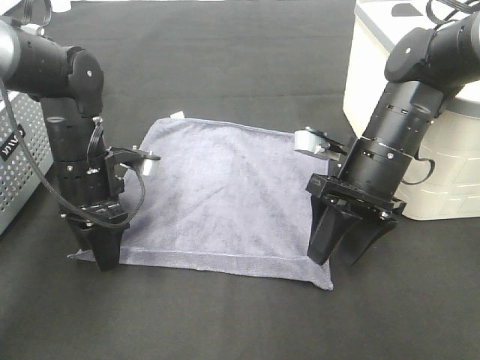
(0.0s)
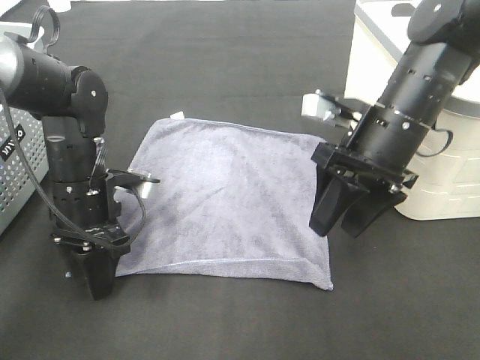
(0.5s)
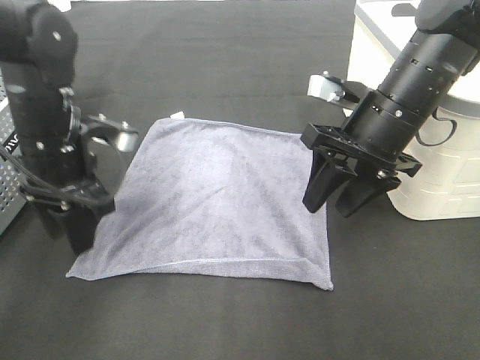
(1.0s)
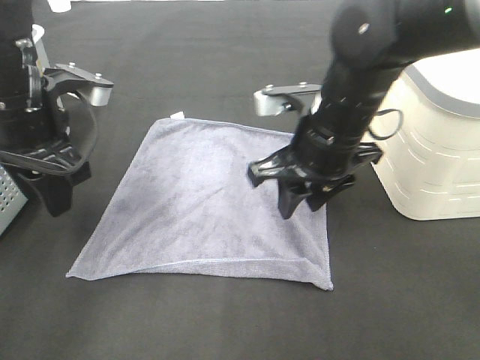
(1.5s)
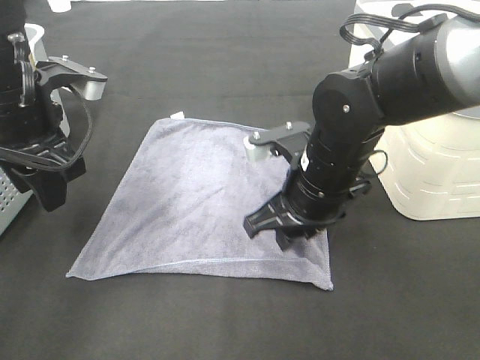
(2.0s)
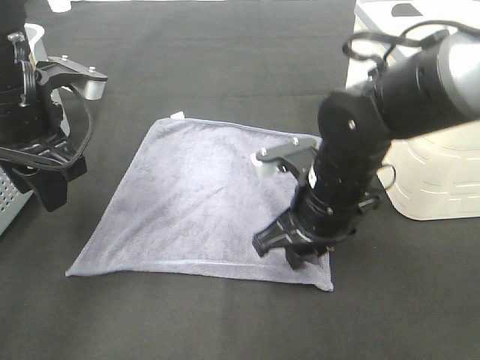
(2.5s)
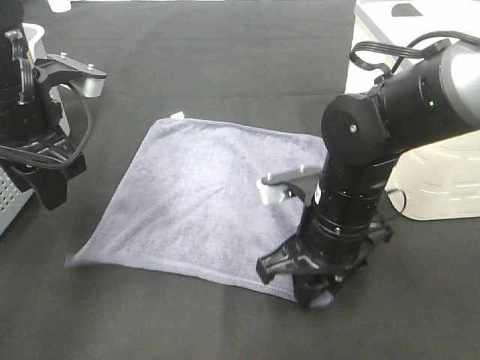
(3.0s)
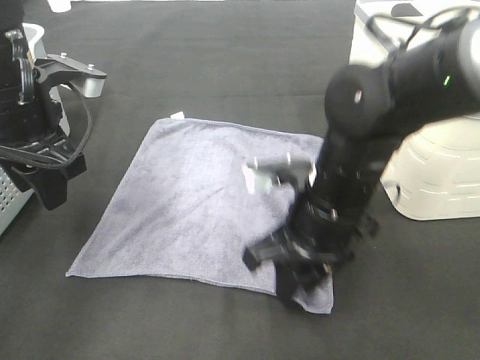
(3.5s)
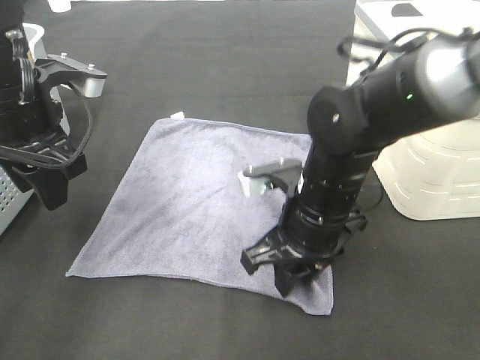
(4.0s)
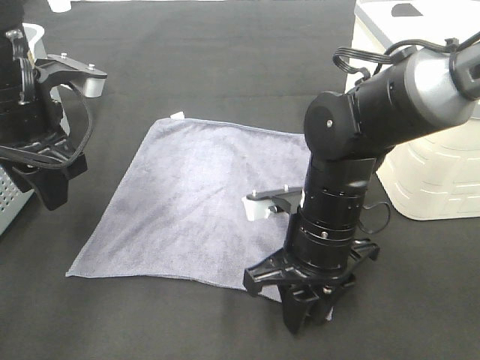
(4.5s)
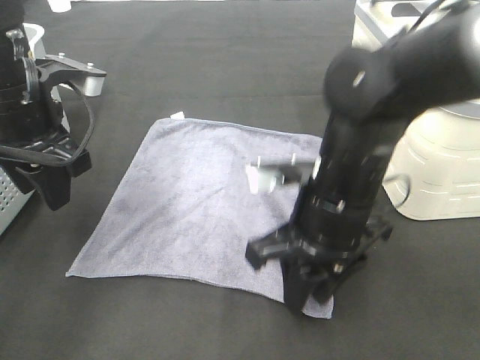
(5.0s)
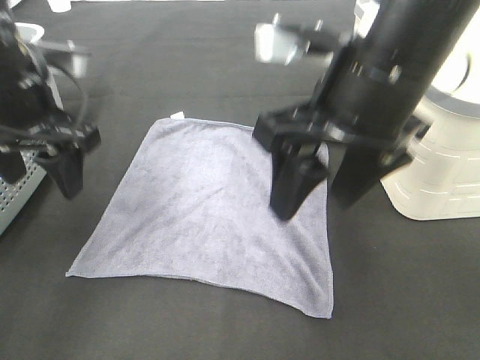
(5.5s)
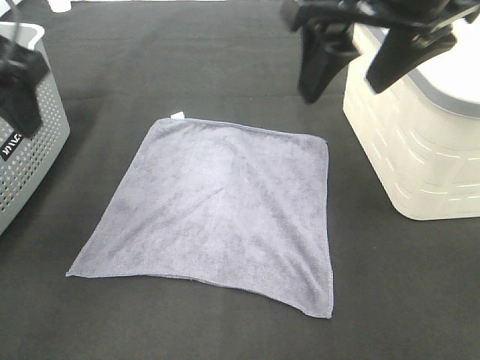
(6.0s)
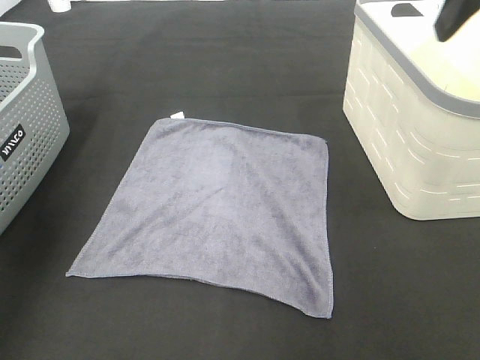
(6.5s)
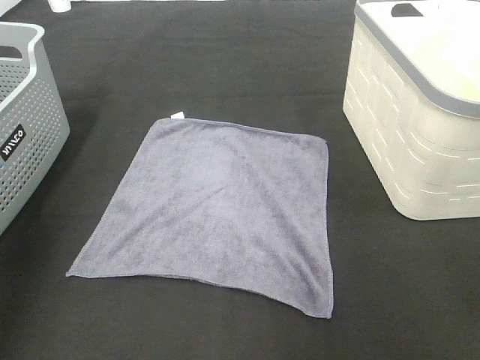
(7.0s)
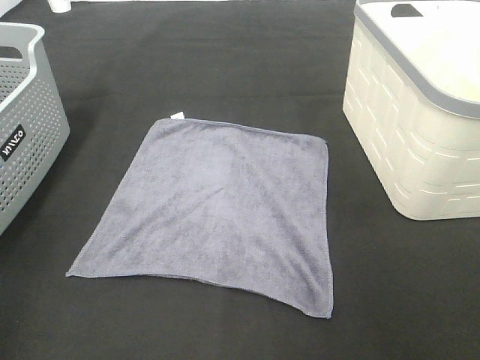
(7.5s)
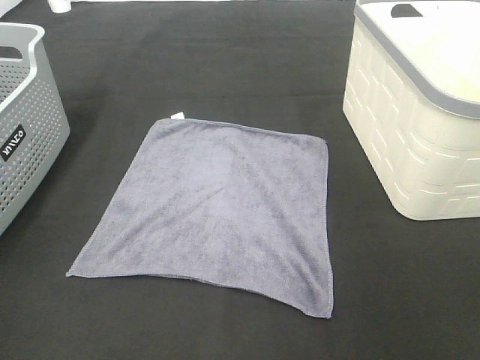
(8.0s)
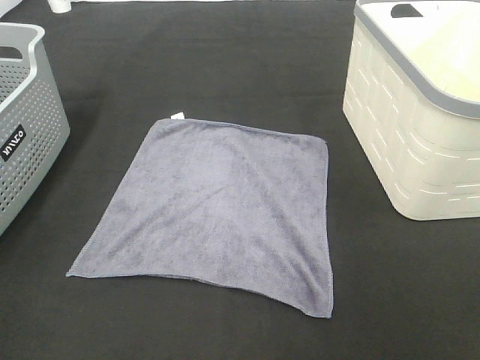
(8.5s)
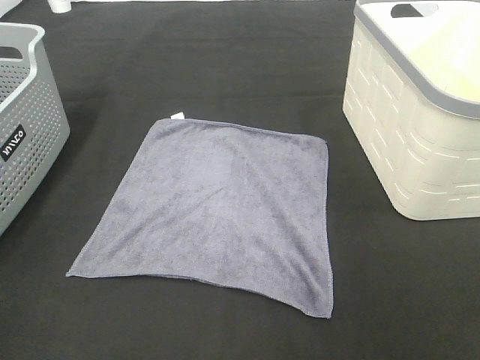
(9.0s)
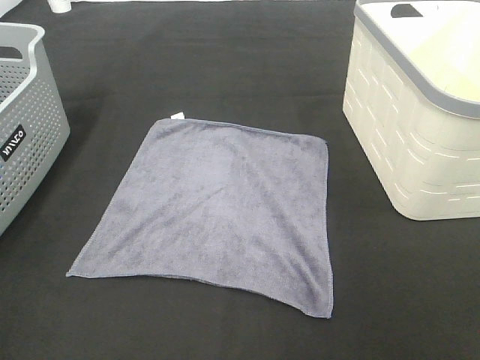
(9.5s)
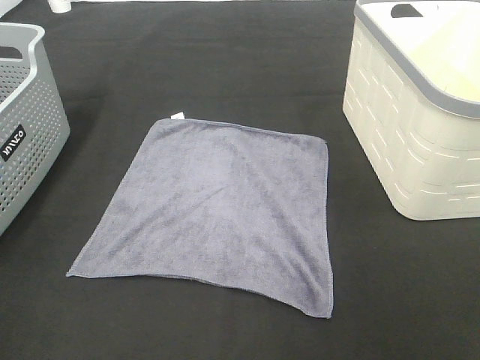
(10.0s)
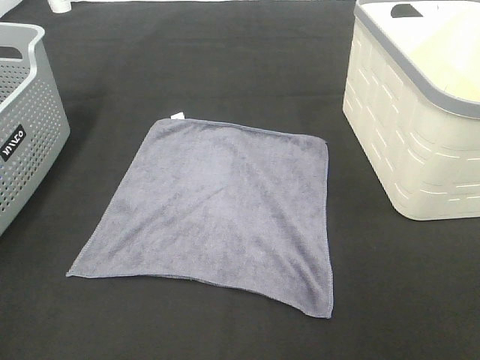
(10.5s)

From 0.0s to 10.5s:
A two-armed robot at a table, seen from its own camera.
Task of the whole recording: Remove the towel and place it.
From 0.0s to 2.0s: The right gripper moves to the left, roughly 10 cm, while the left gripper goes about 10 cm upward.
From 4.0s to 6.5s: The right gripper goes some 30 cm upward and to the right, and opens its fingers; the left gripper is displaced to the left and upward by approximately 20 cm.
From 6.5s to 8.5s: The right gripper goes about 30 cm backward and downward; the left gripper travels backward by approximately 30 cm.

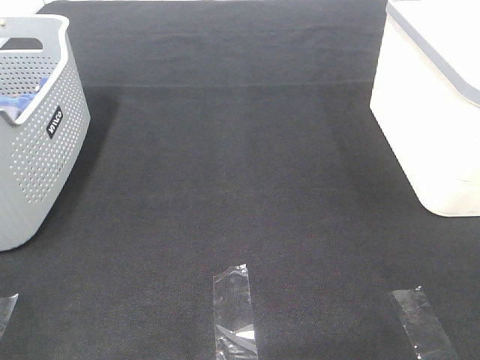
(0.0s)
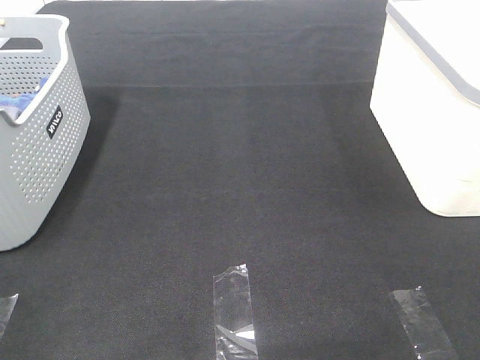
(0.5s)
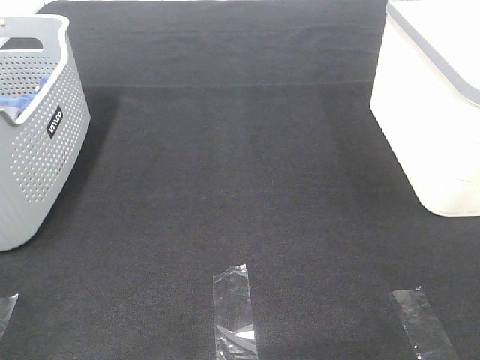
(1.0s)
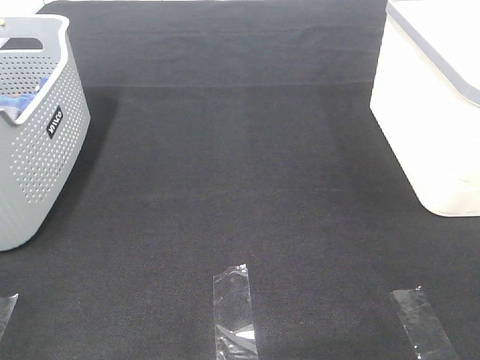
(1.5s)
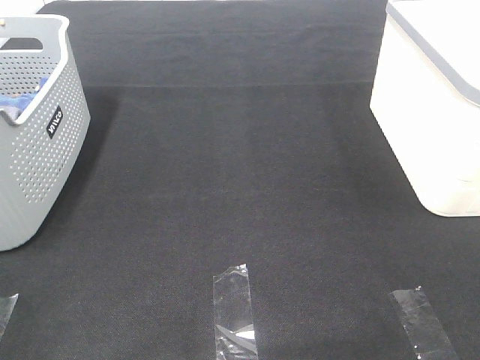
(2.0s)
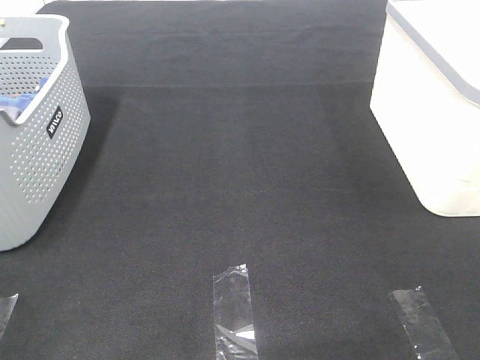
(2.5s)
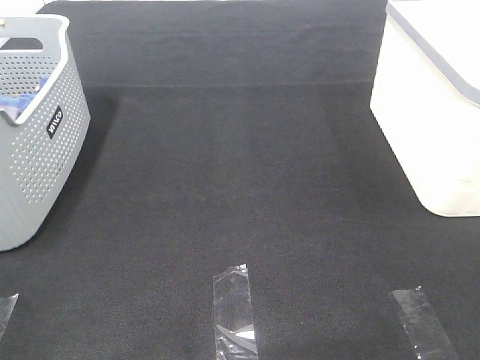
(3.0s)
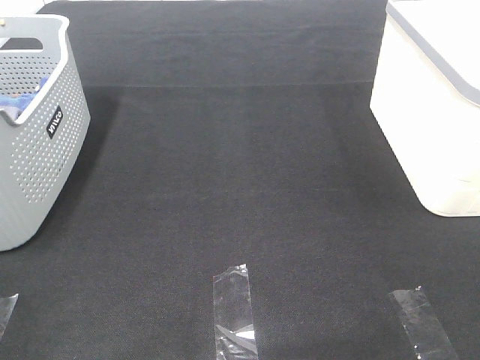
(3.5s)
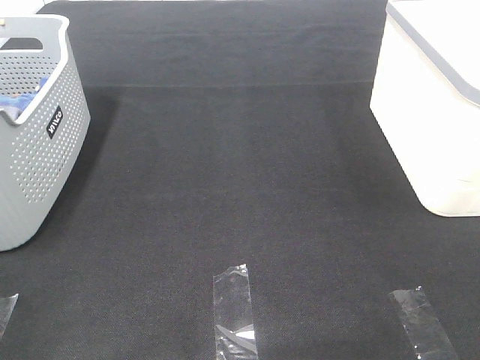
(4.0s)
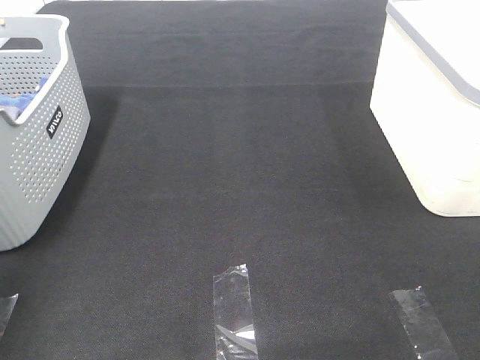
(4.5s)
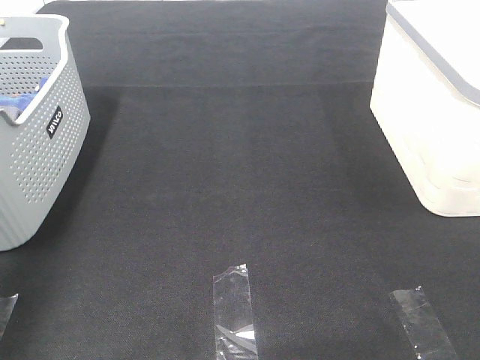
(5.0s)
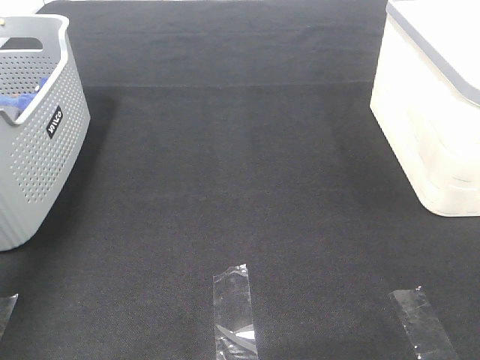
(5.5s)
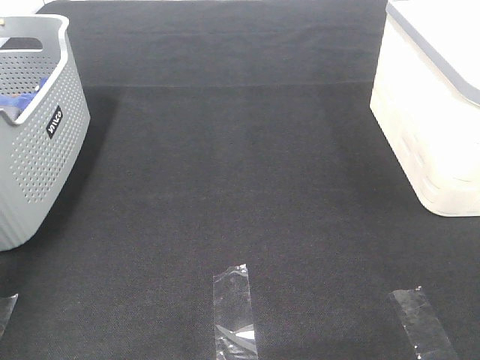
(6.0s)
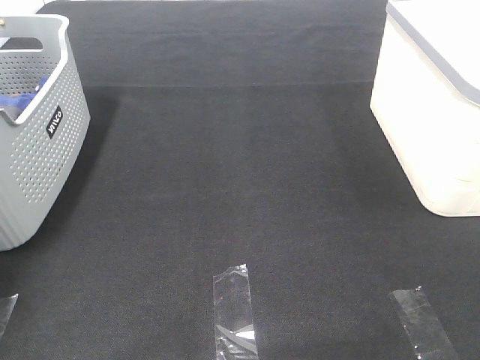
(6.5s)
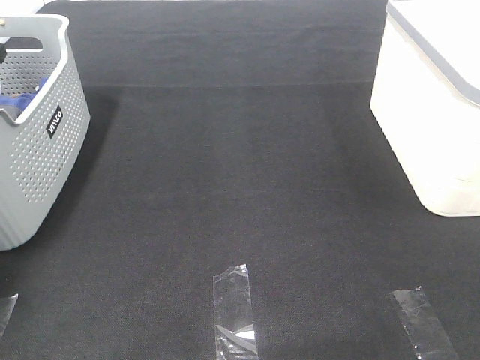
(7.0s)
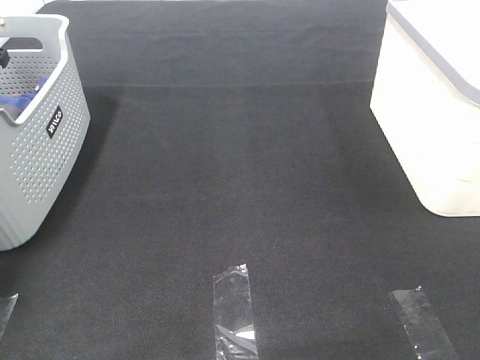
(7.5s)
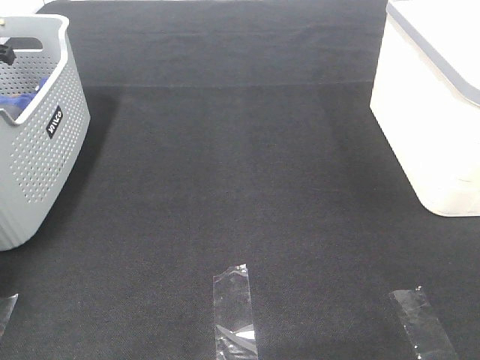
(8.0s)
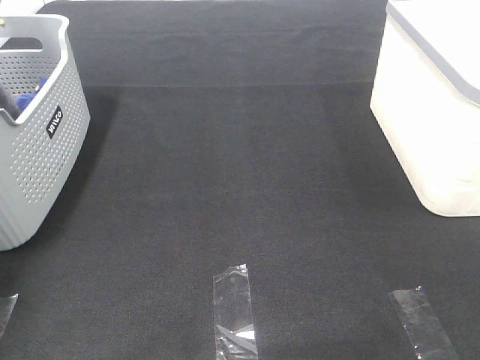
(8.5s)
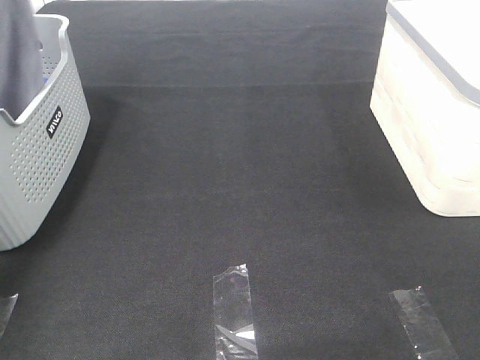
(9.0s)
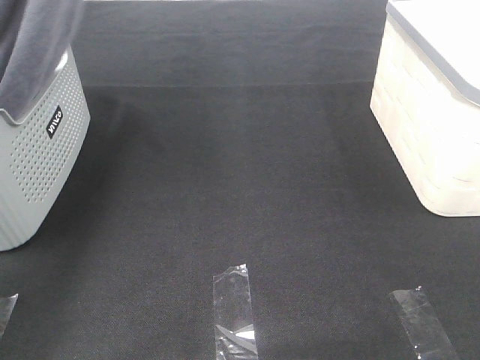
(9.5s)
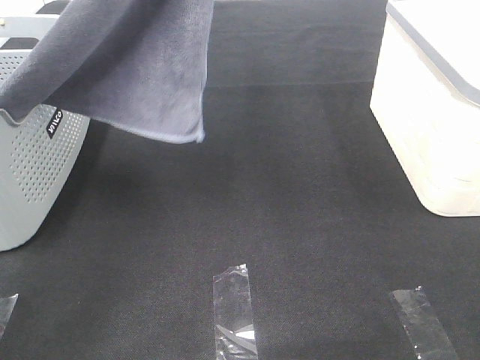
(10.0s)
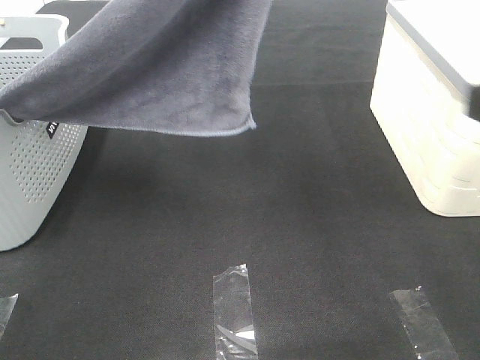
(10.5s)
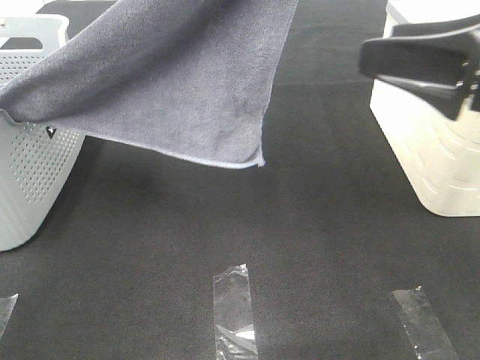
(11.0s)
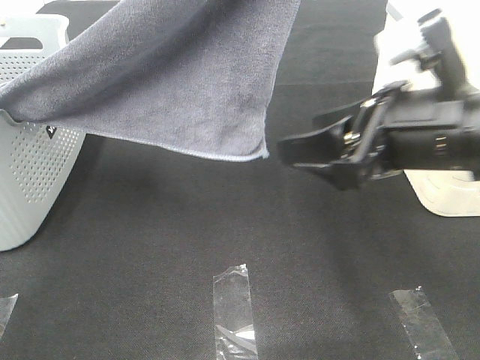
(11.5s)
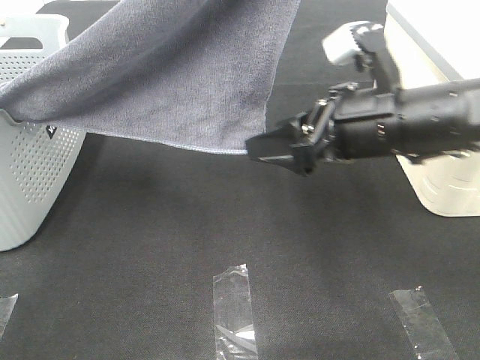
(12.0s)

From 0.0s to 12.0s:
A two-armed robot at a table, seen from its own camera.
Task of the whole recording: Remove the towel and place it.
From 0.0s to 2.0s: Both grippers stay about where they are.
From 4.0s to 6.0s: The left gripper goes approximately 50 cm forward.
From 6.0s to 8.0s: The left gripper travels downward by some 10 cm, and closes.
From 8.0s to 10.0s: The left gripper moves to the right, upward and backward, roughly 40 cm, while the right gripper is displaced forward by approximately 5 cm.
From 10.0s to 12.0s: The right gripper heads forward, to the left and downward, covering approximately 25 cm; the left gripper shifts some 5 cm to the right.

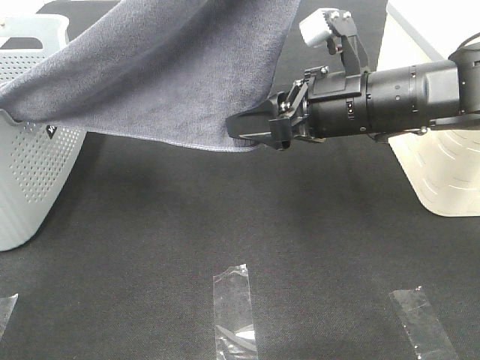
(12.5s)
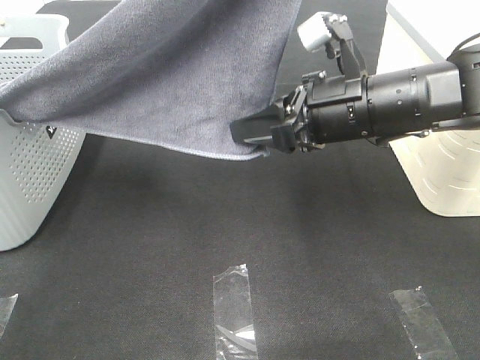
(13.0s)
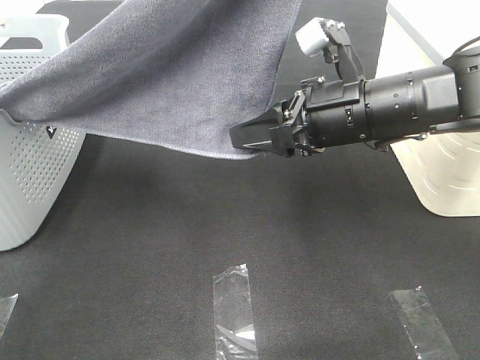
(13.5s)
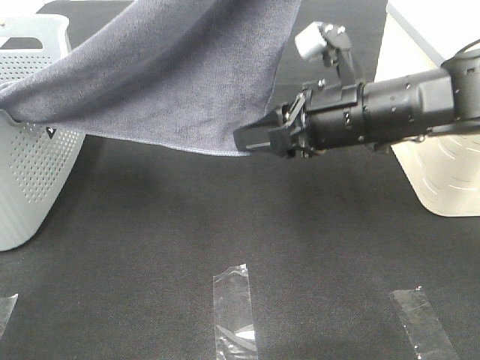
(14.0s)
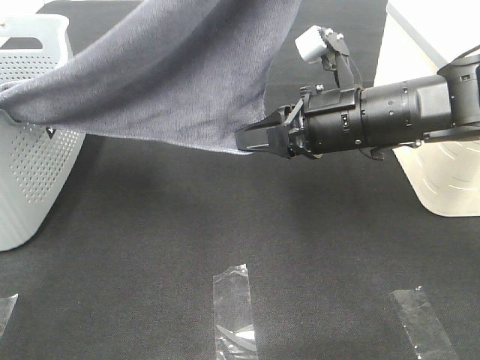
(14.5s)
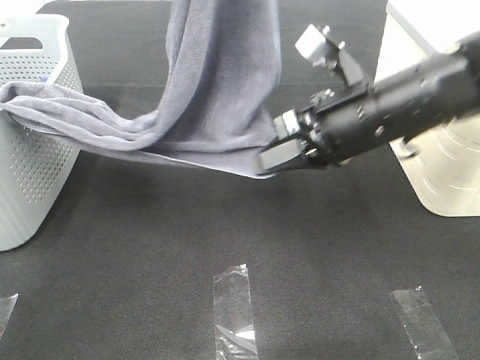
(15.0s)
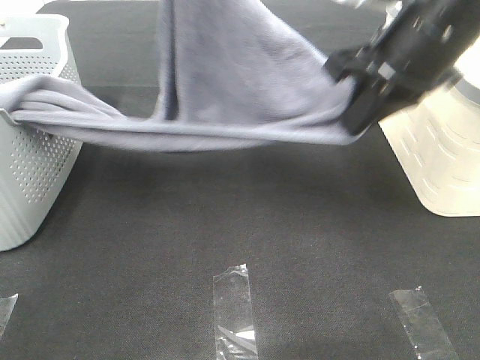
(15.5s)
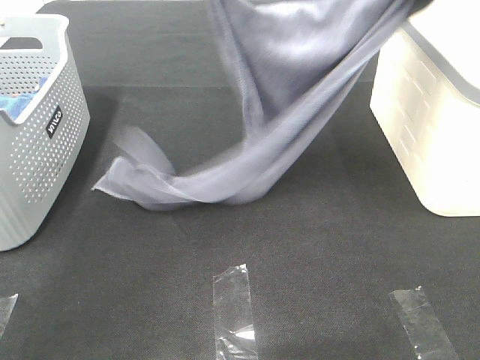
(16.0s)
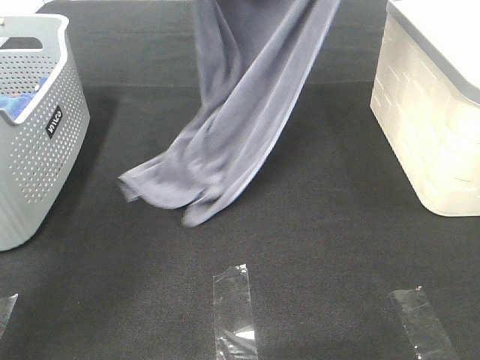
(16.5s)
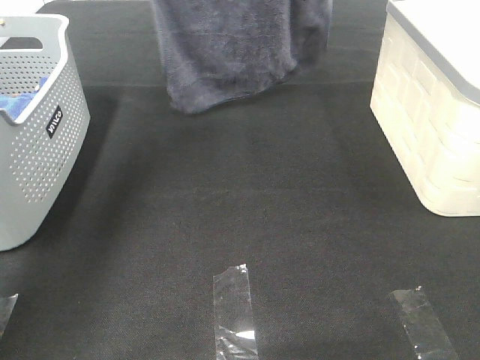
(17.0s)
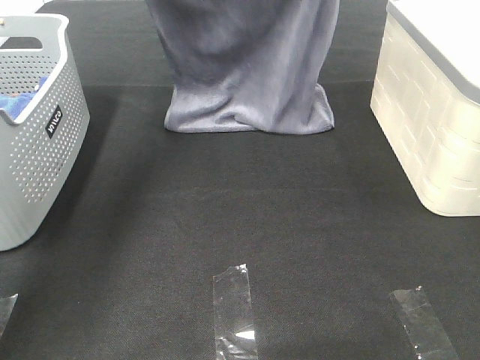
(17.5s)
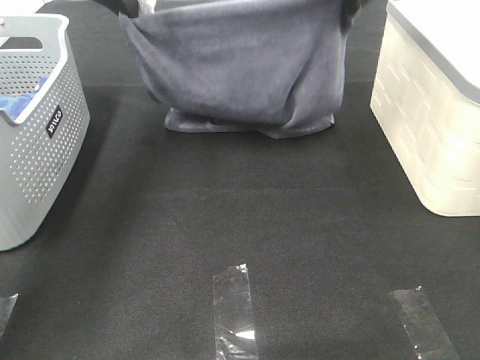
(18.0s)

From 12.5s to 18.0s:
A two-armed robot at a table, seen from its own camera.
Task of the whole recording: Remove the towel and place it.
Step, from 14.0s to 16.5s: Left hand: spread the grey towel flat on the table.
Step, from 14.0s to 16.5s: Right hand: spread the grey towel flat on the table.
From 12.5s to 14.5s: The right gripper closes its fingers.
From 14.5s to 16.0s: The right gripper heads upward, covering roughly 20 cm. Meanwhile the left gripper is displaced forward and downward by about 15 cm.
From 16.0s to 18.0s: The right gripper moves forward, approximately 5 cm, and moves some 10 cm upward and comes back. The left gripper moves to the left, about 10 cm, and goes upward and returns, about 10 cm each way.
